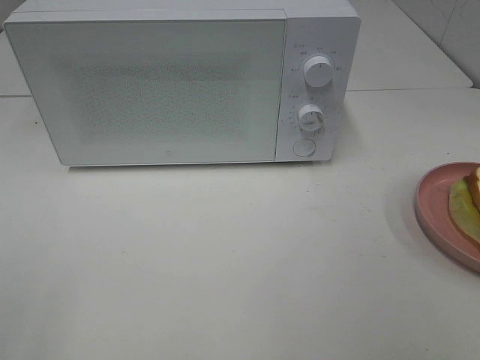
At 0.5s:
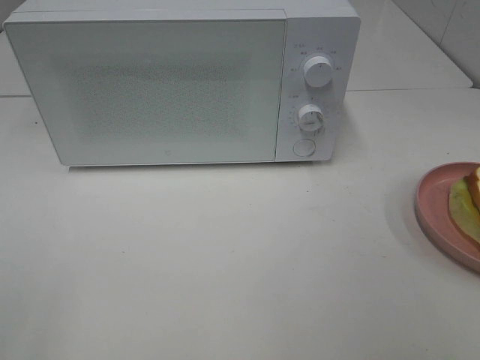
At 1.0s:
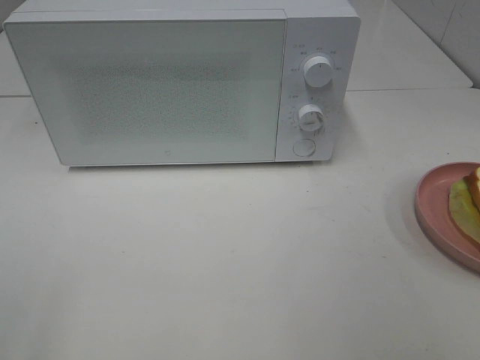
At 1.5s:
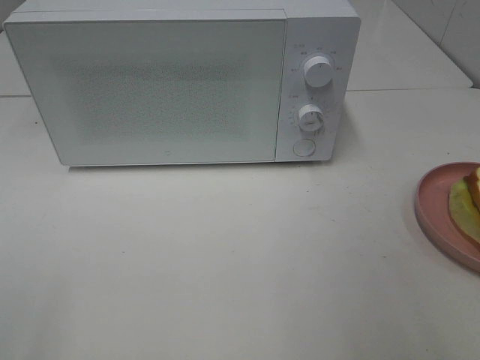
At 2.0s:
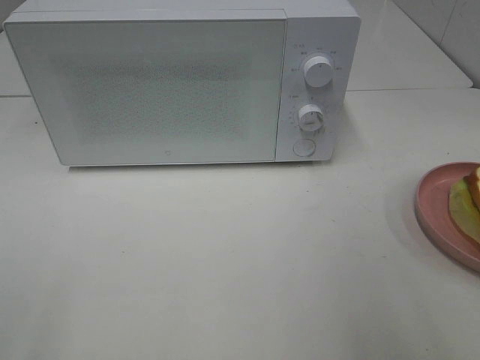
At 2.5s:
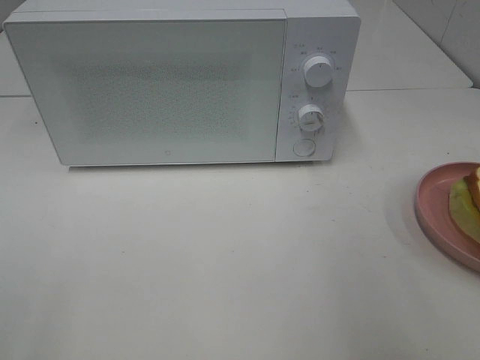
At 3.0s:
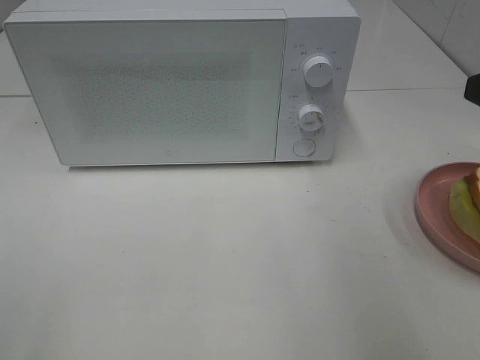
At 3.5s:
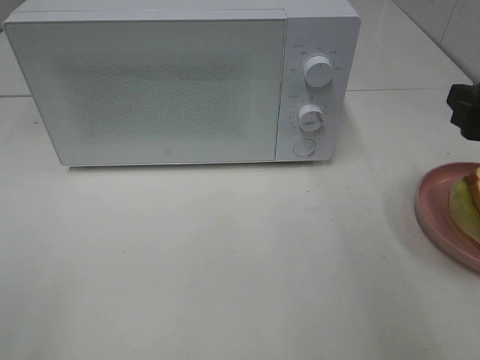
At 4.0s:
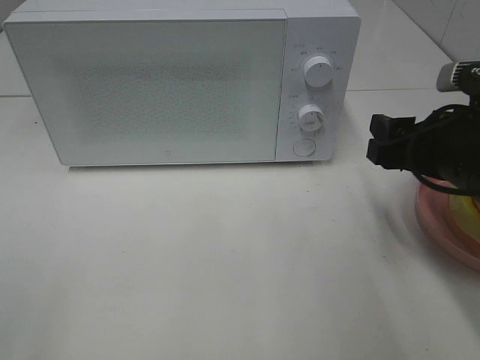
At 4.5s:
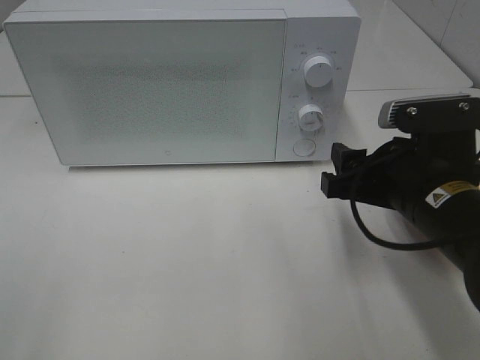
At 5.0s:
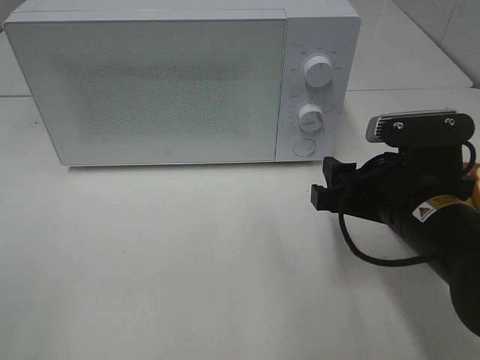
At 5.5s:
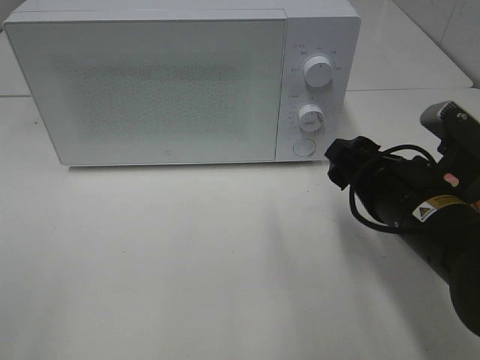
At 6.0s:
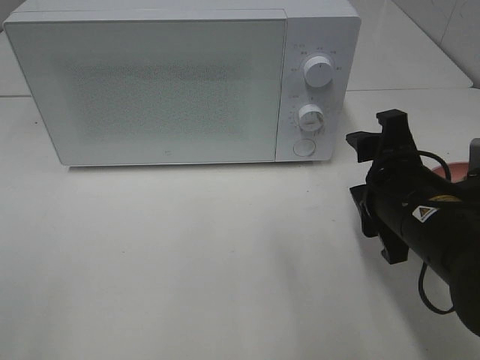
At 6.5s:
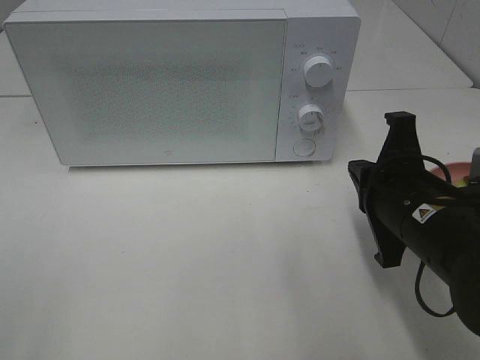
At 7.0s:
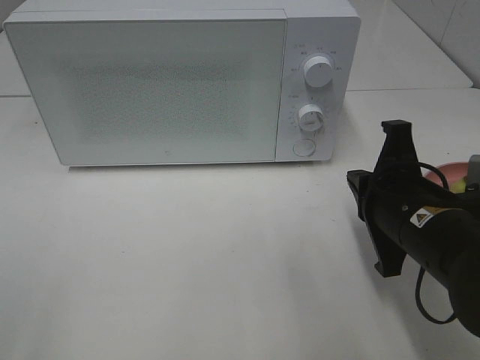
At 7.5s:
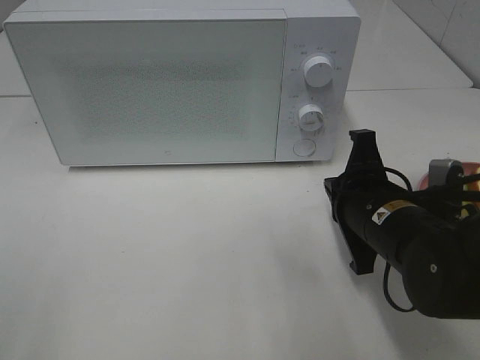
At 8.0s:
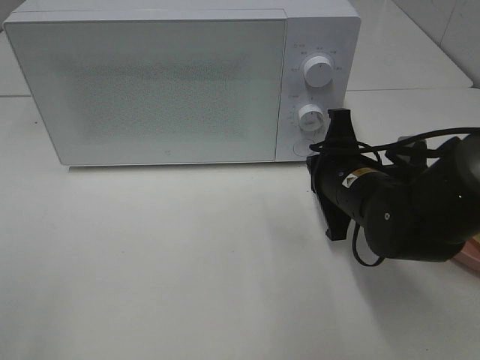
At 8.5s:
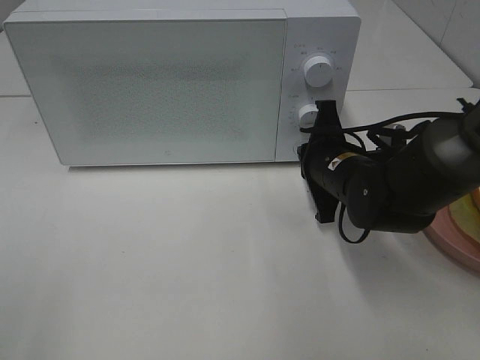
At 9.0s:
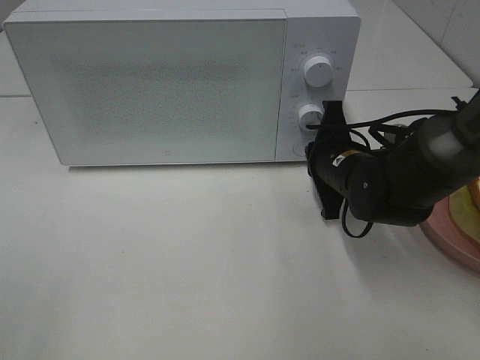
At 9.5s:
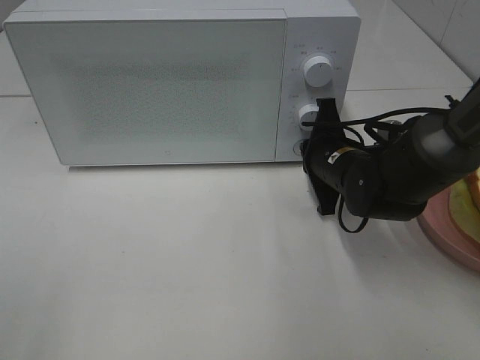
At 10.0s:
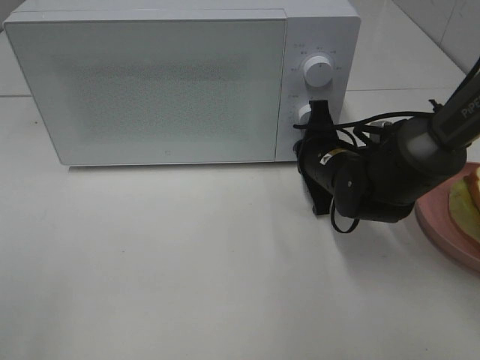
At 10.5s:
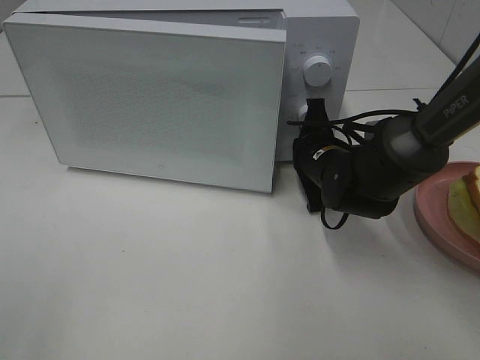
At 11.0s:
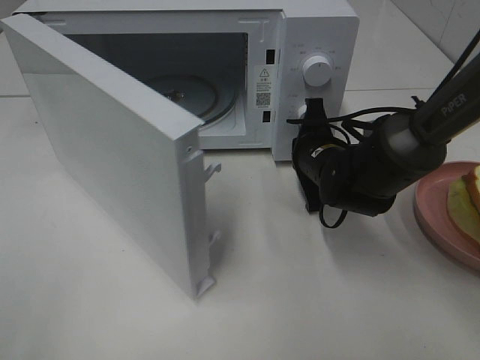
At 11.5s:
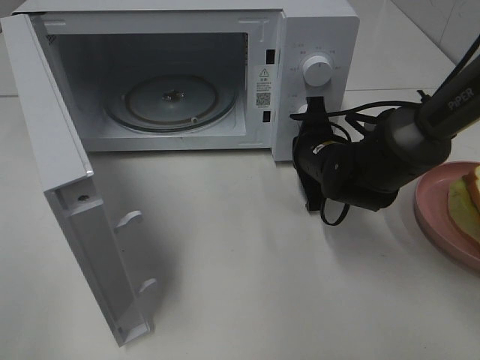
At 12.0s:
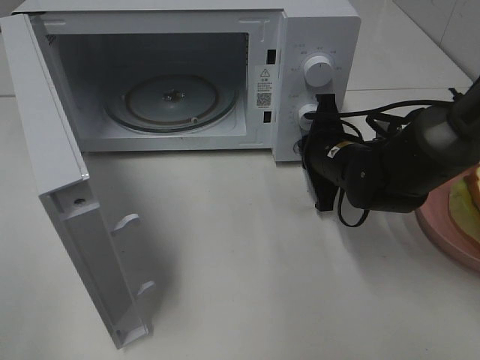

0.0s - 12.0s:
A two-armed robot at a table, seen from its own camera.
Task of the whole recording: Heat Sandwich.
2.0s - 4.0s: The right gripper goes approximately 20 cm forward, downward and to the left.
4.0s - 6.0s: The right gripper travels to the left by about 5 cm.
6.0s - 8.0s: The right gripper heads forward, covering about 10 cm, and closes its fingers.
8.0s - 10.0s: The right gripper moves forward, roughly 5 cm.

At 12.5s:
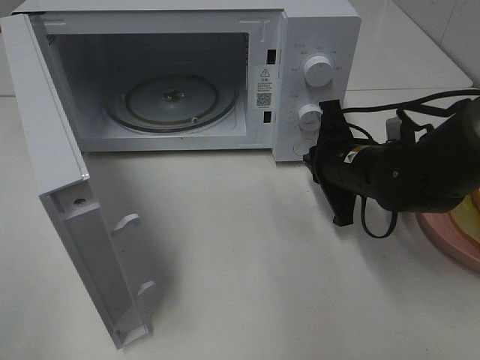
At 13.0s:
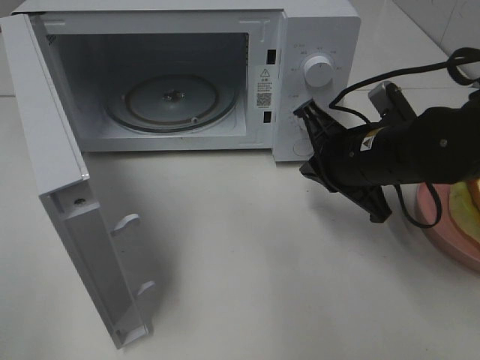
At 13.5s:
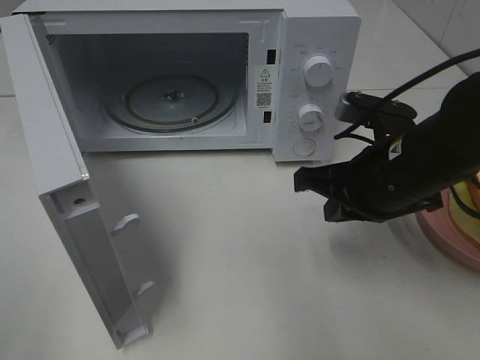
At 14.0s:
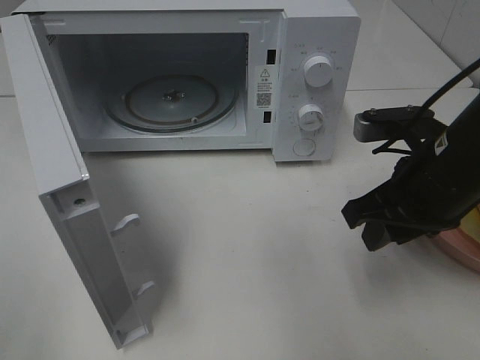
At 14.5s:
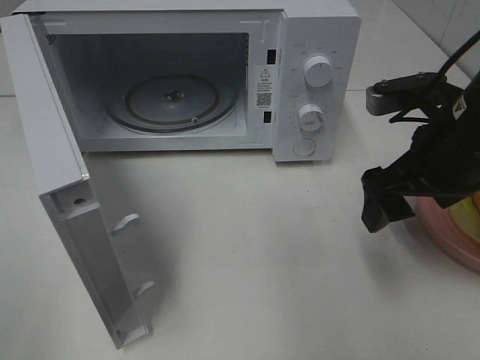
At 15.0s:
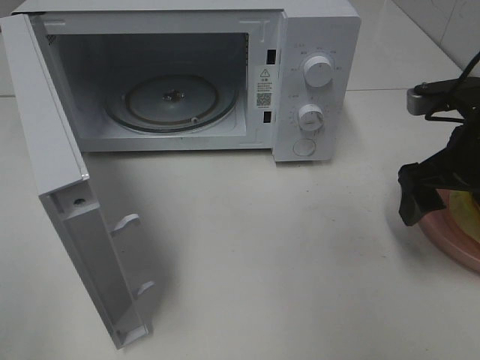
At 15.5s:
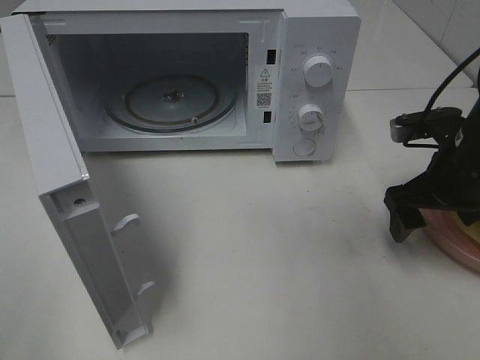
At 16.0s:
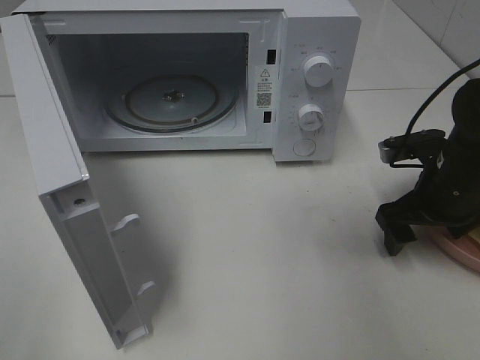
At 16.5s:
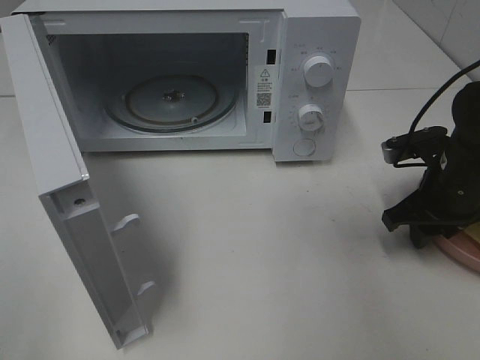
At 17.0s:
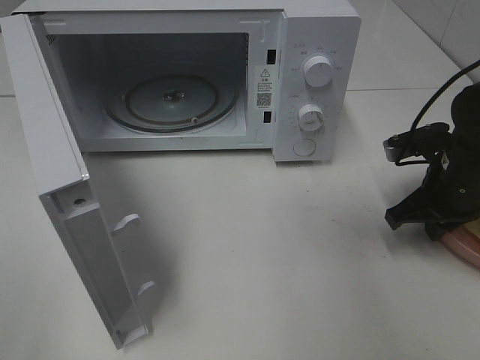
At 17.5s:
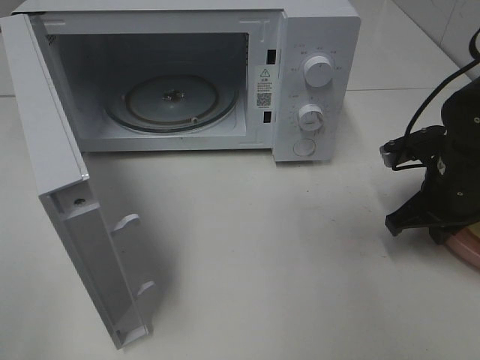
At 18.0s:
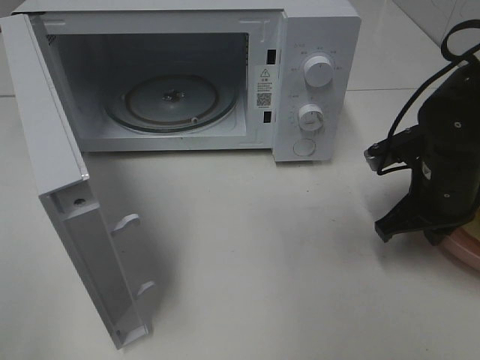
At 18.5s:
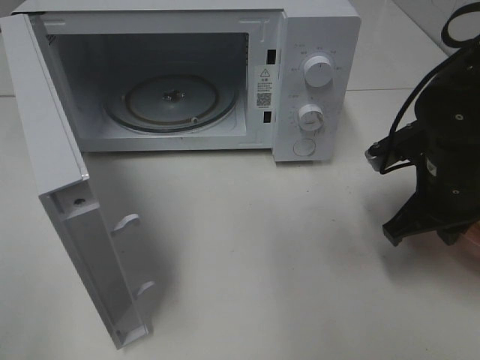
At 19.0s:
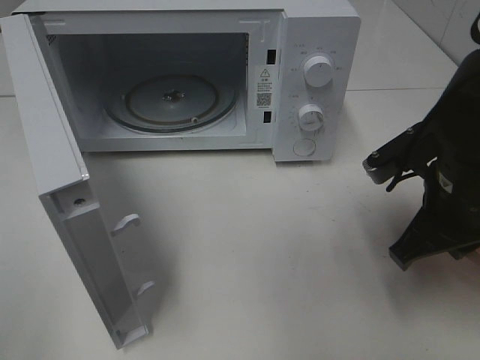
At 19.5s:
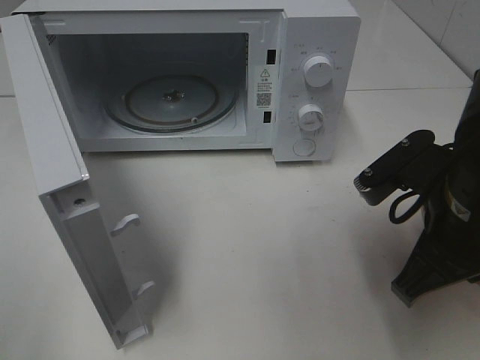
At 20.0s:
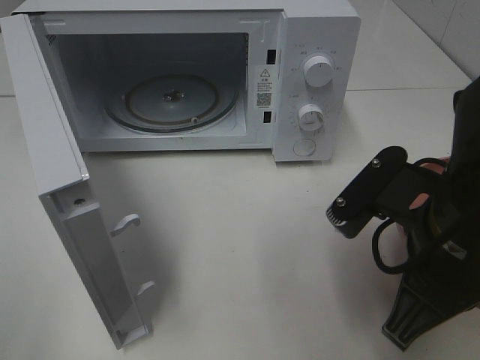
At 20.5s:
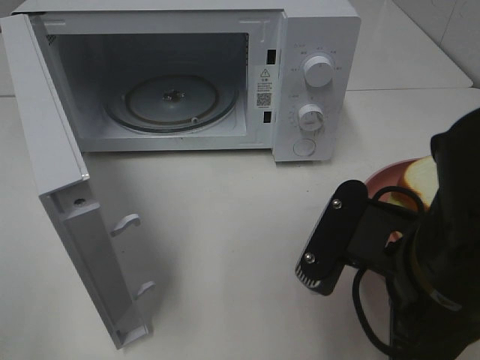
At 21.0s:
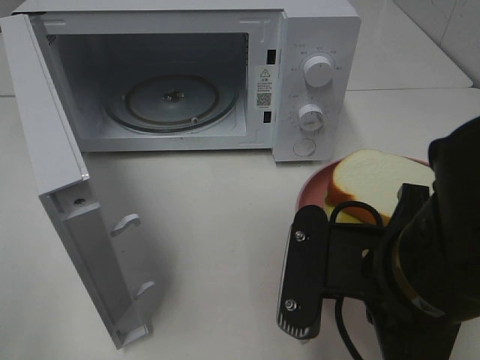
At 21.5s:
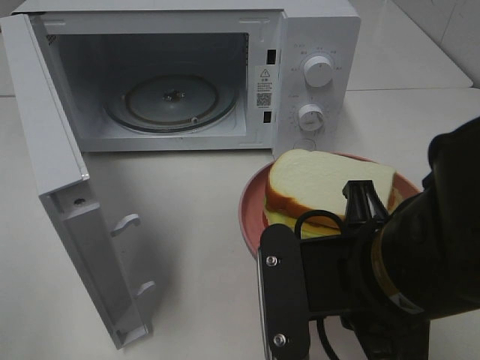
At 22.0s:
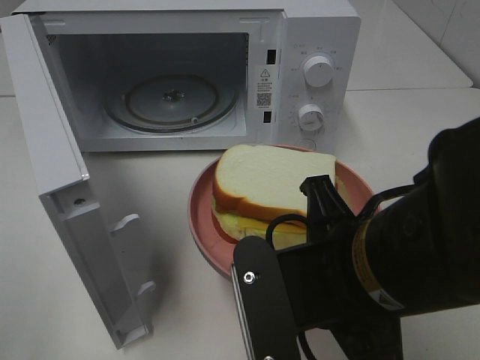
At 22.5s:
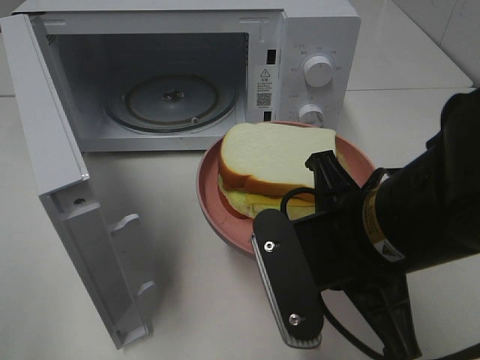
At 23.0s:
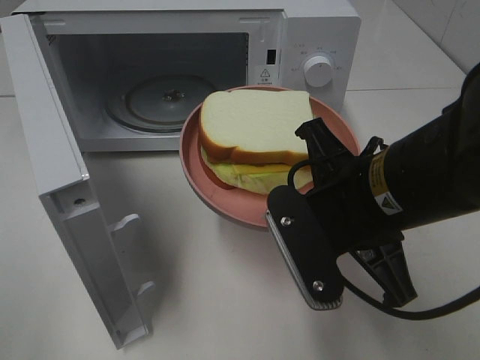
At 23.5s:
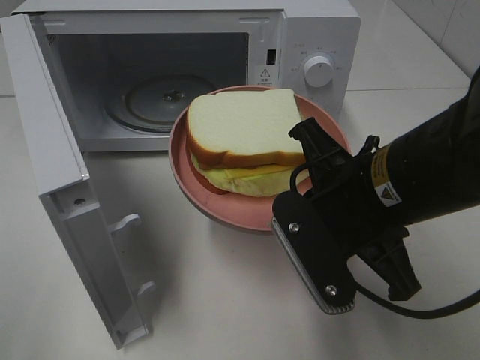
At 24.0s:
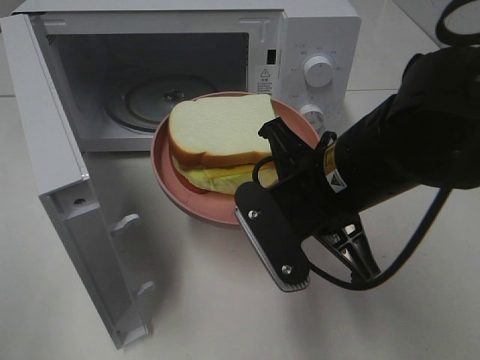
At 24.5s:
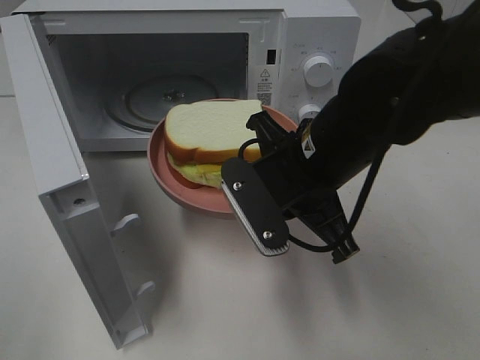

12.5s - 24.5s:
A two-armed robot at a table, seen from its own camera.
Task of the whole recording: Heat Sandwich.
Step, 12.5s - 17.5s: Right hand: grab the plate with the sandwich.
12.5s - 14.5s: The right gripper heads upward, backward and to the right, covering roughly 15 cm, and opens.
14.5s - 16.5s: The right gripper shifts some 10 cm downward and to the right, and closes up.
16.5s - 18.5s: The right gripper moves some 5 cm, and closes up.
18.5s - 20.5s: The right gripper shifts approximately 20 cm backward and to the left.
22.5s - 24.5s: The right gripper travels forward by approximately 10 cm.

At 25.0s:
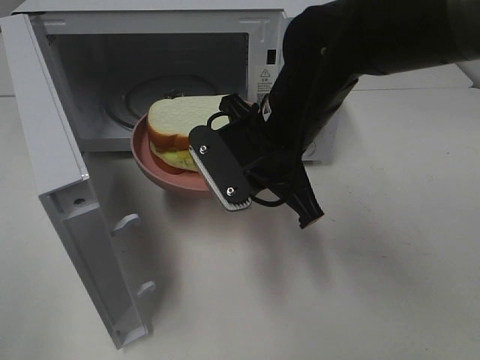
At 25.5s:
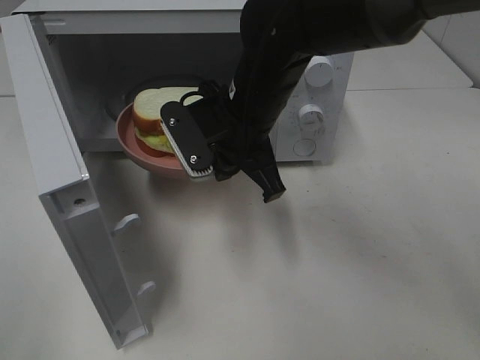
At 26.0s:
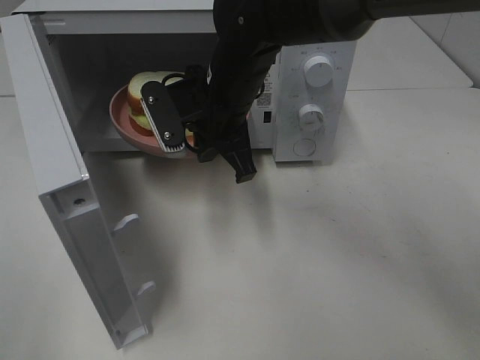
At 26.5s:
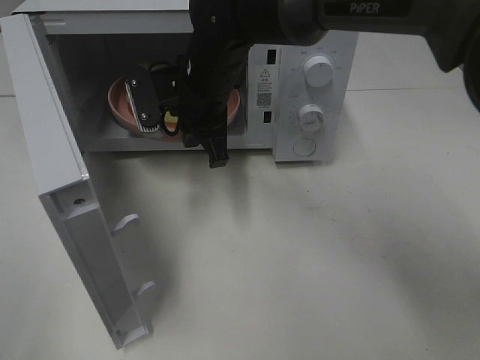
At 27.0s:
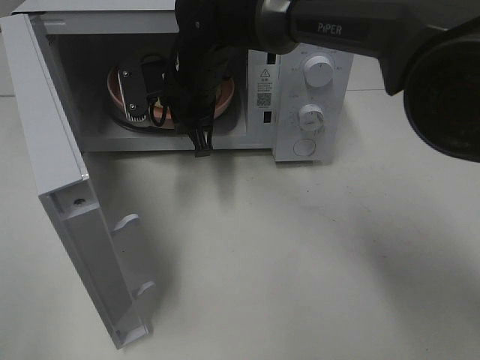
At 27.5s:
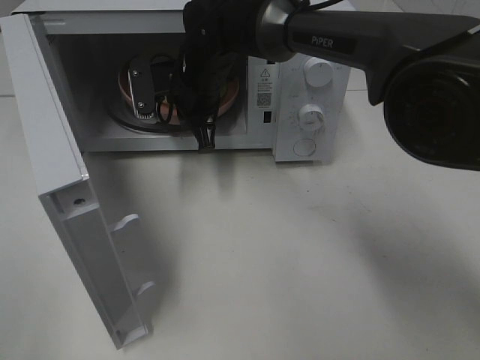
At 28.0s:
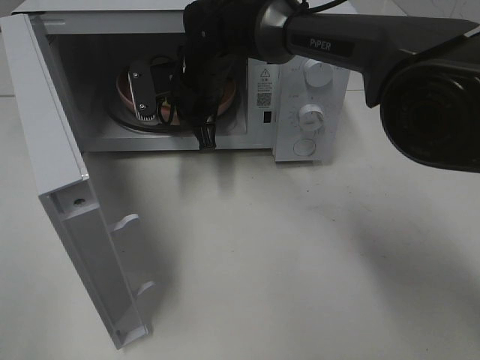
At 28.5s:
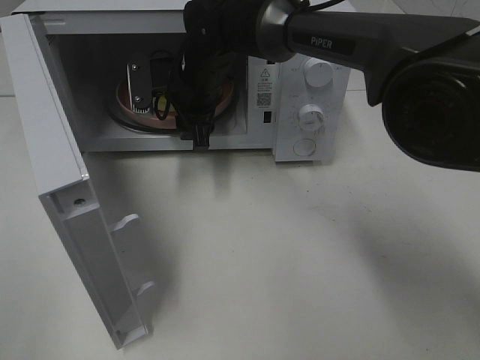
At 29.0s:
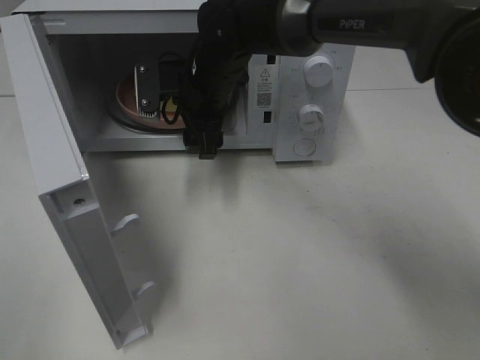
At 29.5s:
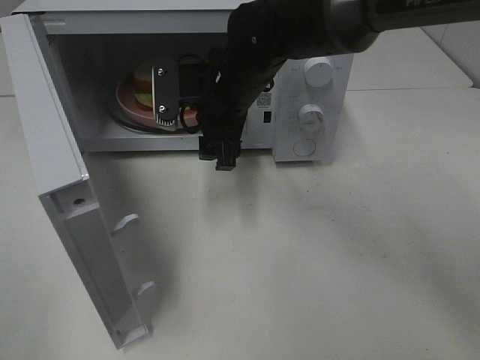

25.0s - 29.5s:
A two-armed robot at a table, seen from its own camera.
Task of the whole recording: Heat Sandwich.
Step, 25.0s - 29.0s: Right hand: place the plate in the microwave.
25.0s - 27.0s: The right gripper moves forward and to the left, some 15 cm.
27.0s - 29.5s: The right gripper shifts about 5 cm to the right, and opens up.
